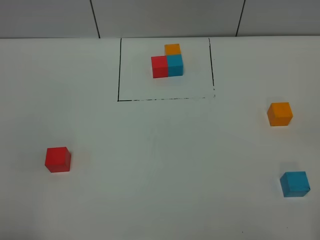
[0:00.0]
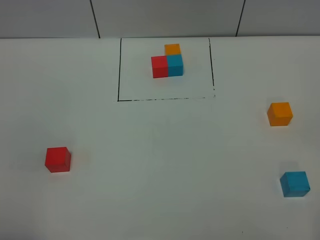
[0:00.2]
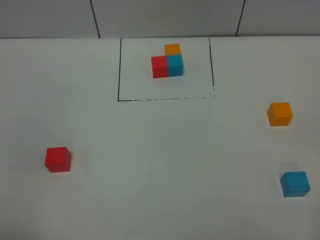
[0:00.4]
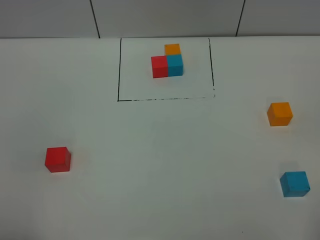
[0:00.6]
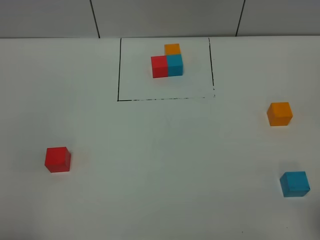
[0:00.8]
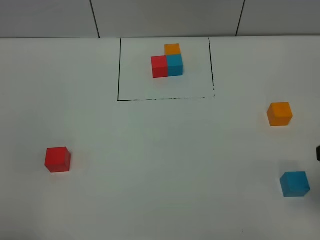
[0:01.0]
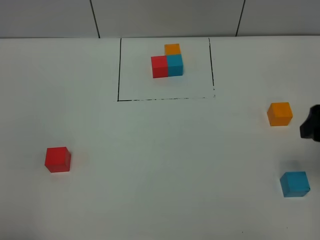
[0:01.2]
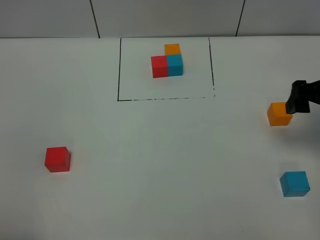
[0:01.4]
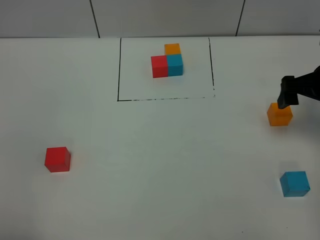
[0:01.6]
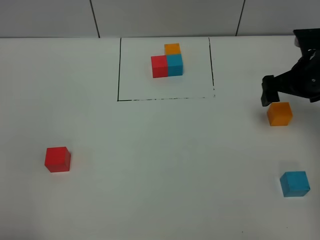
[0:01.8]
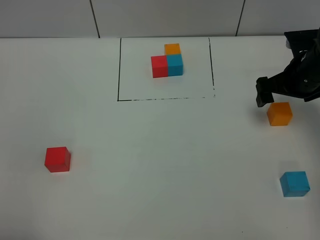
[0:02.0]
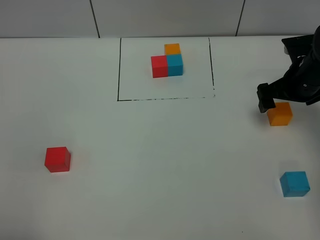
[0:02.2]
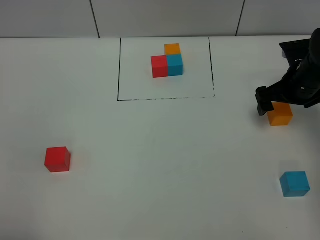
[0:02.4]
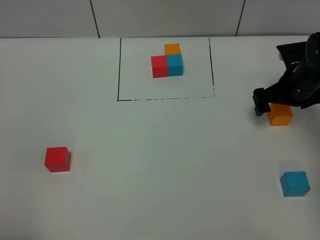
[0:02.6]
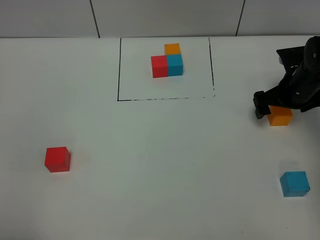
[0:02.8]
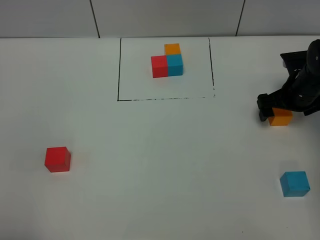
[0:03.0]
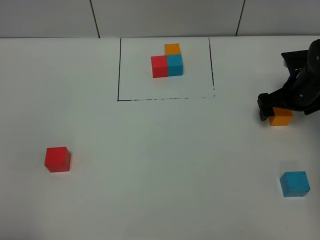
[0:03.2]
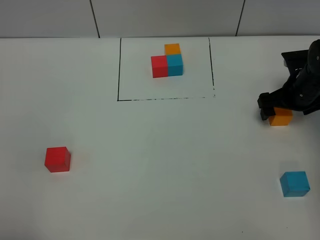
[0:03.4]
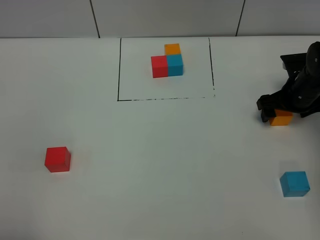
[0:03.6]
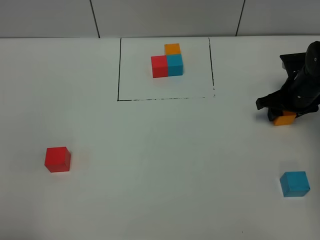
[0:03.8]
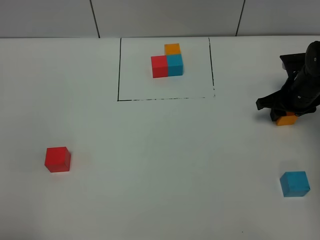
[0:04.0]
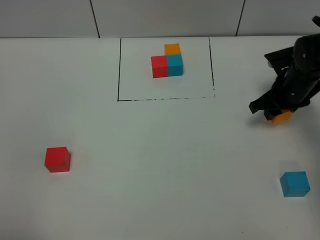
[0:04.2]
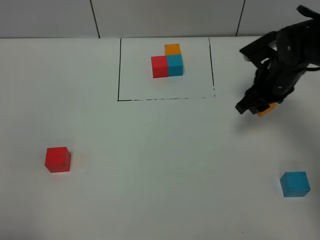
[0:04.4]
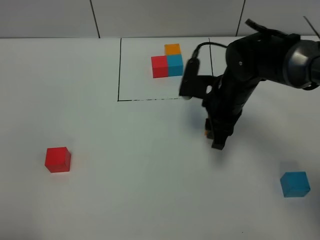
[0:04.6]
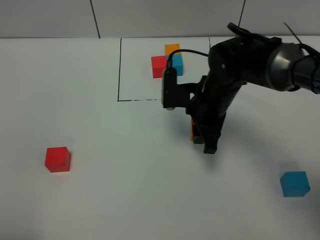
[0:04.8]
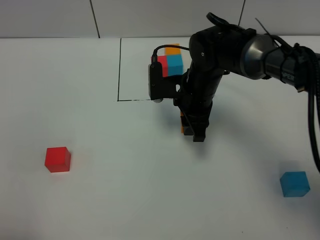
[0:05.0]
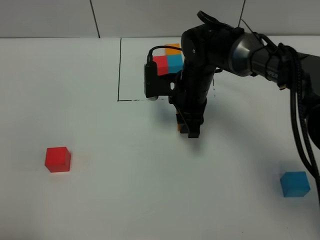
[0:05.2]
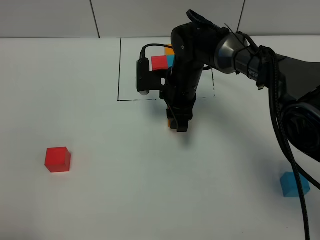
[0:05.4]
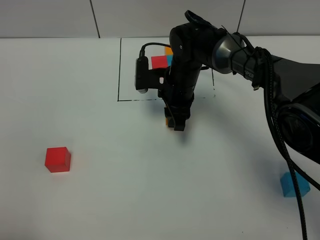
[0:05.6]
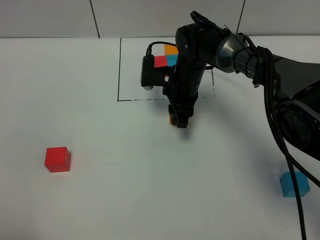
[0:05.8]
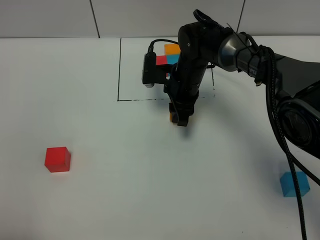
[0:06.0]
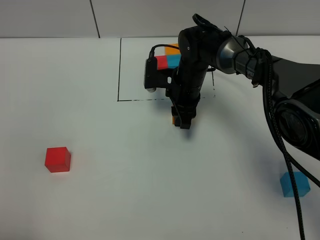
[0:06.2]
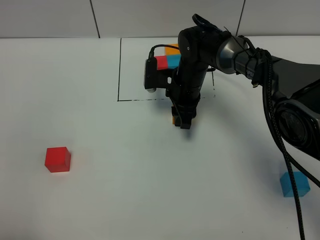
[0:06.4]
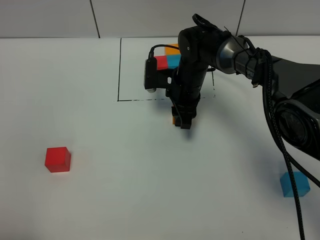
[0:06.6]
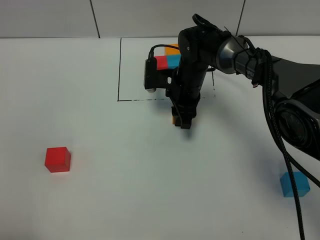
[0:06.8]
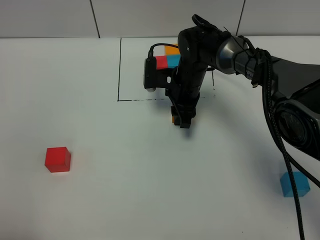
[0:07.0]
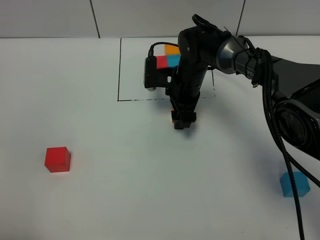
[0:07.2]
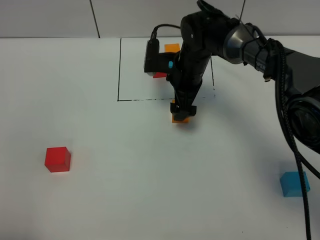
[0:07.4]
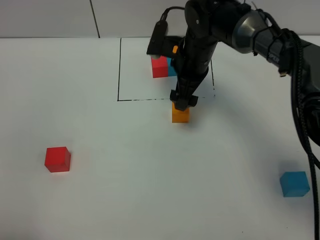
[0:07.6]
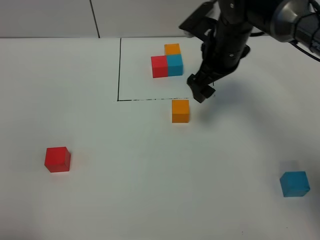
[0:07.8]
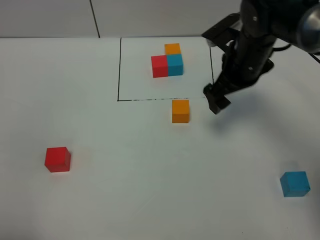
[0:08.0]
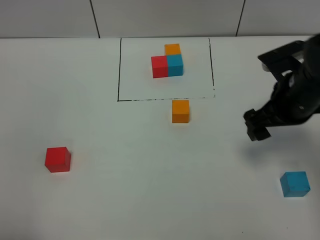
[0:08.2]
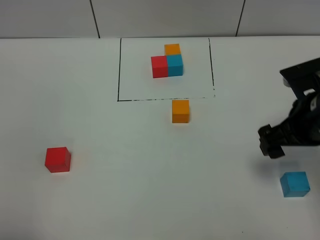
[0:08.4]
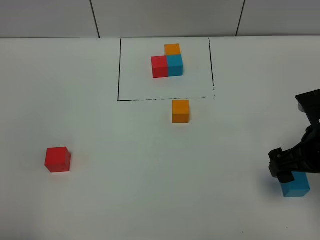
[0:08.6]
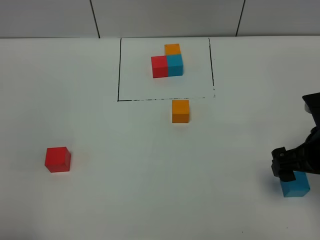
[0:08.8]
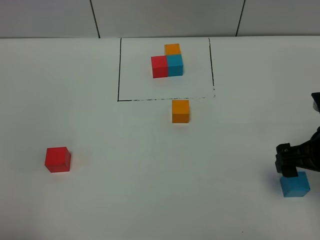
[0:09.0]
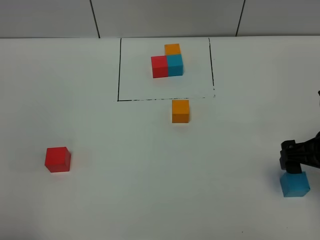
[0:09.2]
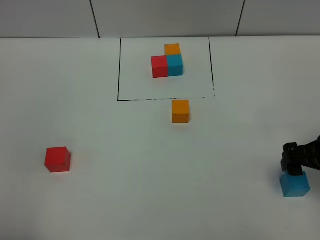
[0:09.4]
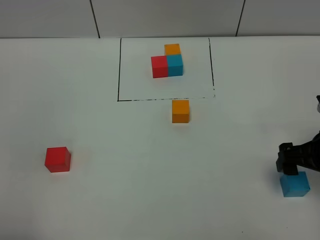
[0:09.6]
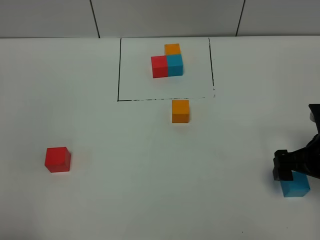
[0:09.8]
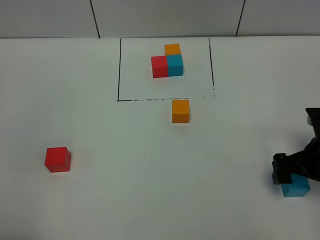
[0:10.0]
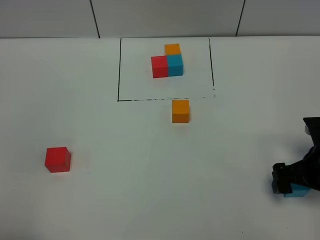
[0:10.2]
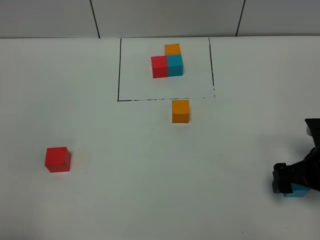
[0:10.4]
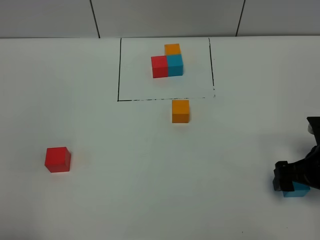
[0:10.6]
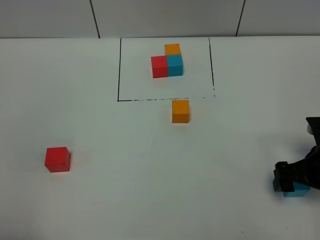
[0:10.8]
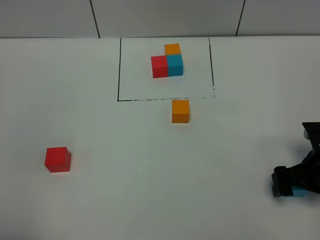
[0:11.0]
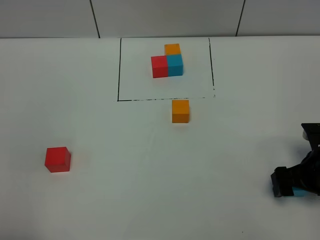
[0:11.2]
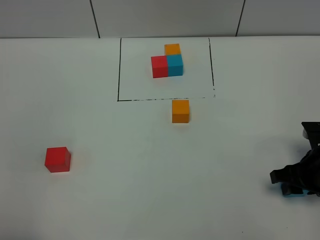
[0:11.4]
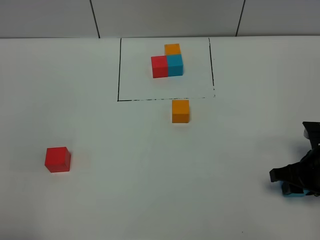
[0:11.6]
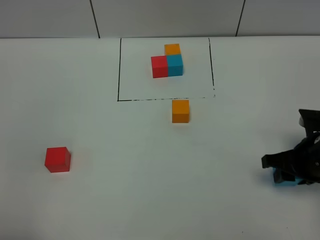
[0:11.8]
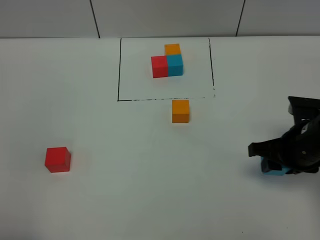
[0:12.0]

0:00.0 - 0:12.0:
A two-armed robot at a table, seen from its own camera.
Task of the whole recording: According to the building block template in front, assemble the scattered blocks together.
Step, 0:00.0 - 0:07.2: Put the orange build block in the center of the table.
0:00.0 - 0:01.6: The right gripper shifts about 35 cm forward.
0:01.6 - 0:03.0: The right gripper moves downward and forward, some 10 cm.
0:03.0 - 0:04.4: The right gripper travels to the left and upward by some 10 cm, and closes its fingers.
0:04.4 - 0:06.0: The right gripper travels to the left by approximately 15 cm.
0:06.0 - 0:07.6: The right gripper heads upward, covering roughly 10 cm, and opens its fingers.
0:07.6 - 0:09.0: The right gripper shifts roughly 30 cm backward and to the right.
0:09.0 - 0:10.4: The right gripper moves downward, about 5 cm.
0:10.4 - 0:12.0: The right gripper travels to the left by some 5 cm, and closes.

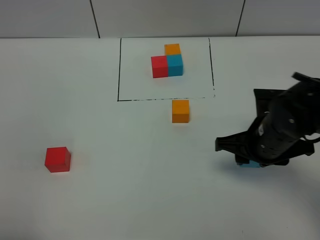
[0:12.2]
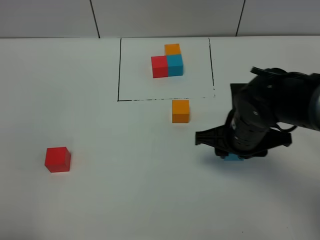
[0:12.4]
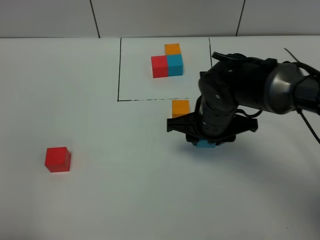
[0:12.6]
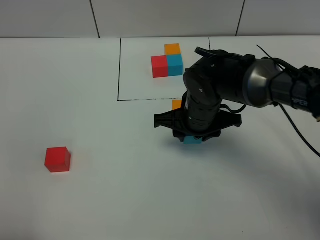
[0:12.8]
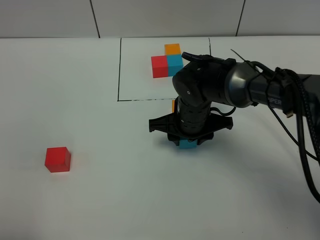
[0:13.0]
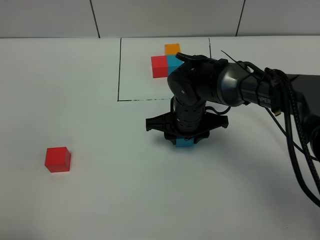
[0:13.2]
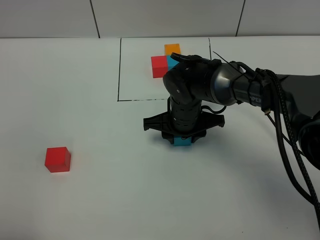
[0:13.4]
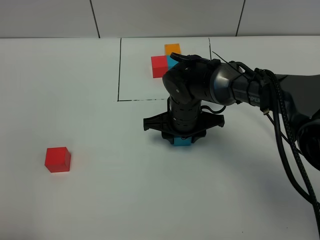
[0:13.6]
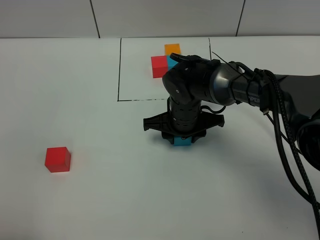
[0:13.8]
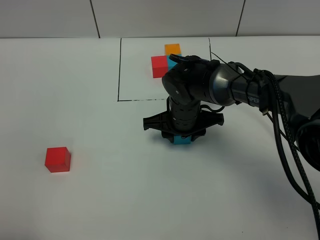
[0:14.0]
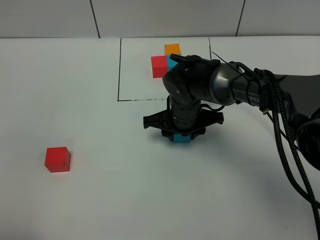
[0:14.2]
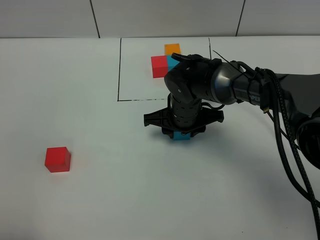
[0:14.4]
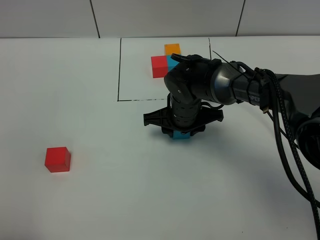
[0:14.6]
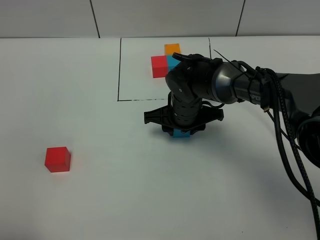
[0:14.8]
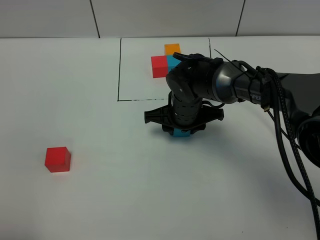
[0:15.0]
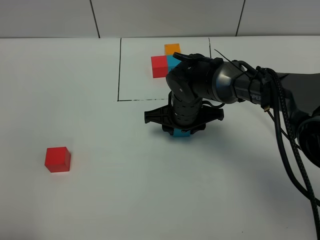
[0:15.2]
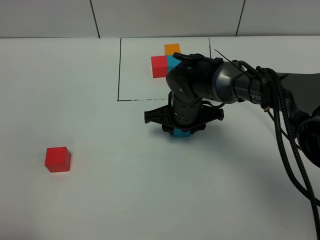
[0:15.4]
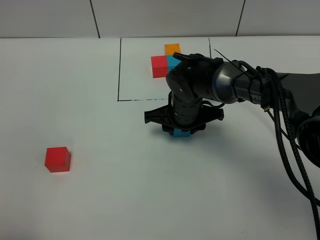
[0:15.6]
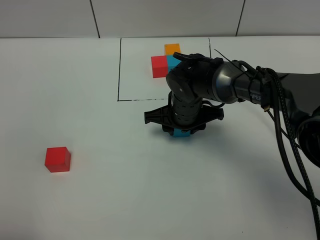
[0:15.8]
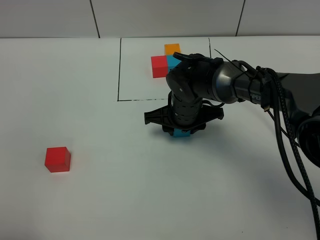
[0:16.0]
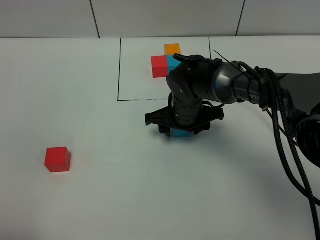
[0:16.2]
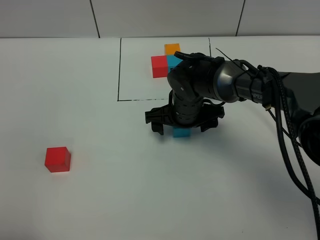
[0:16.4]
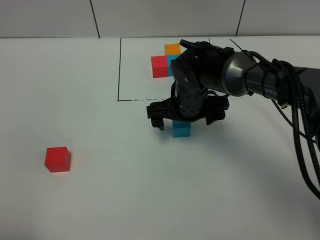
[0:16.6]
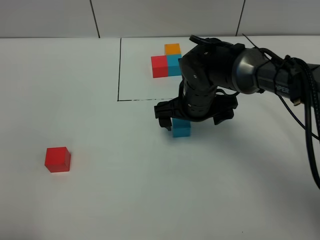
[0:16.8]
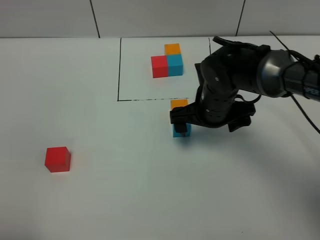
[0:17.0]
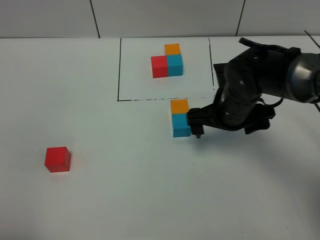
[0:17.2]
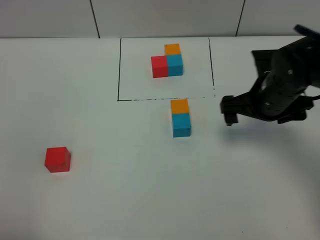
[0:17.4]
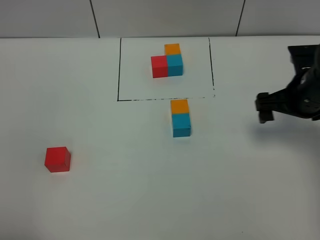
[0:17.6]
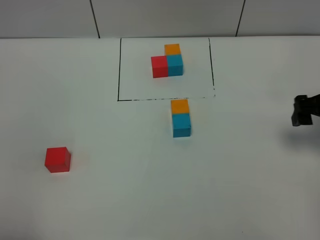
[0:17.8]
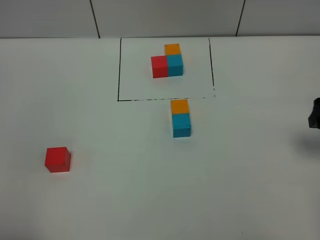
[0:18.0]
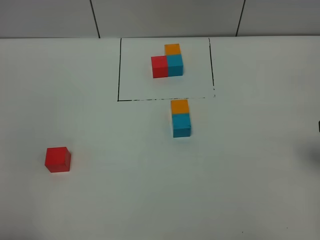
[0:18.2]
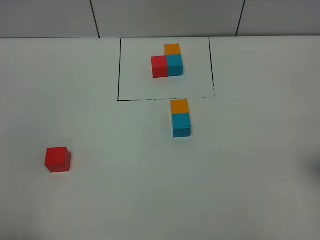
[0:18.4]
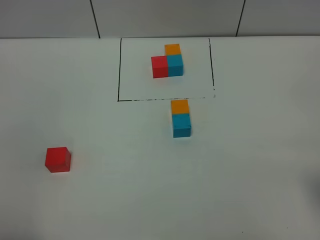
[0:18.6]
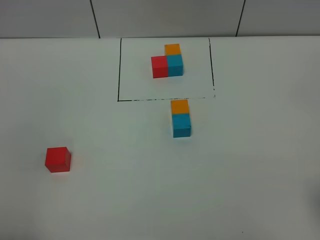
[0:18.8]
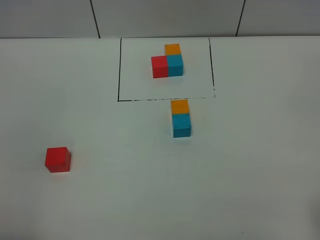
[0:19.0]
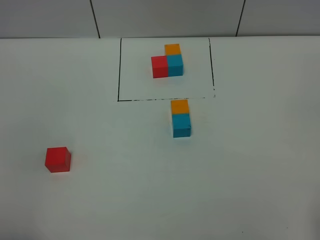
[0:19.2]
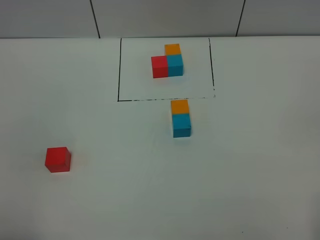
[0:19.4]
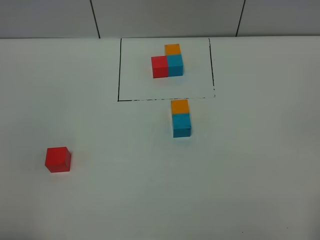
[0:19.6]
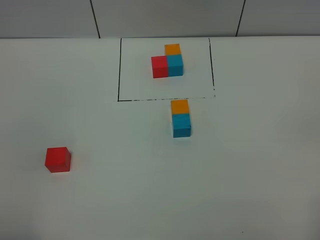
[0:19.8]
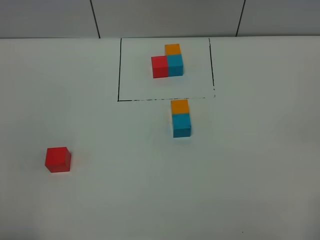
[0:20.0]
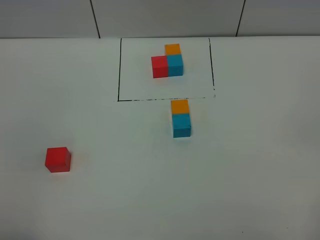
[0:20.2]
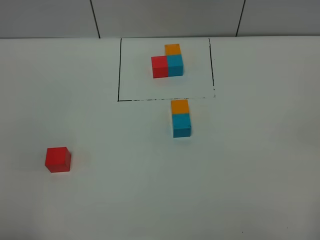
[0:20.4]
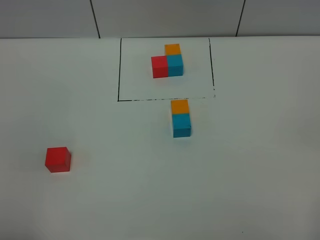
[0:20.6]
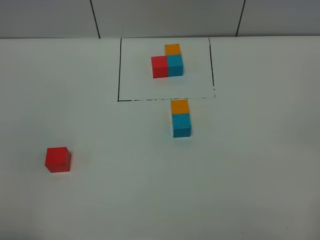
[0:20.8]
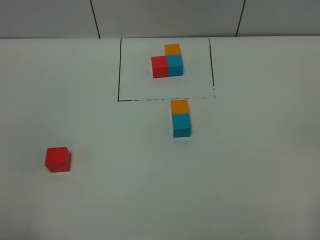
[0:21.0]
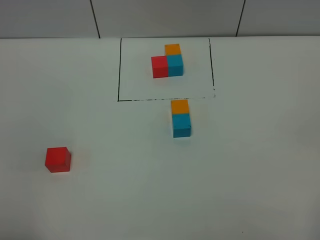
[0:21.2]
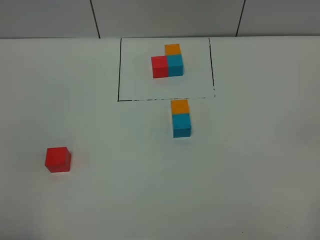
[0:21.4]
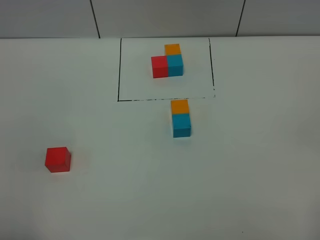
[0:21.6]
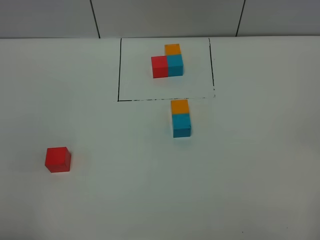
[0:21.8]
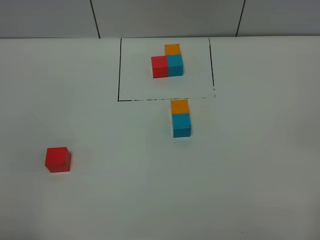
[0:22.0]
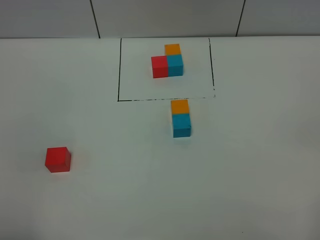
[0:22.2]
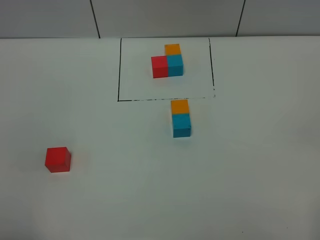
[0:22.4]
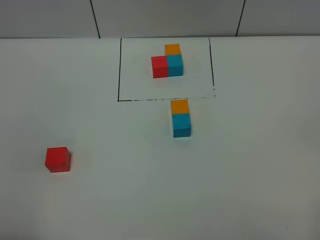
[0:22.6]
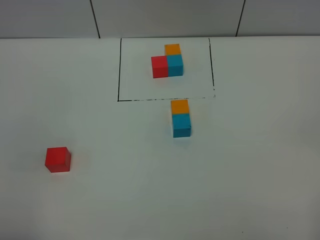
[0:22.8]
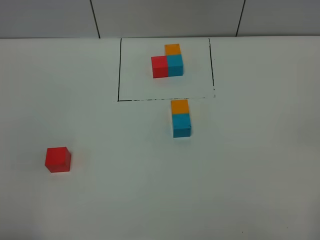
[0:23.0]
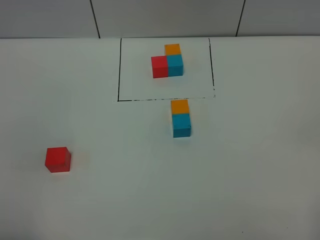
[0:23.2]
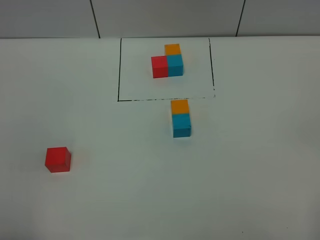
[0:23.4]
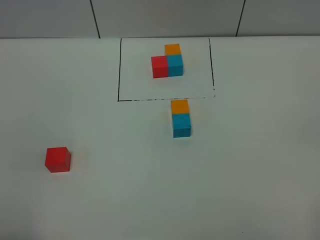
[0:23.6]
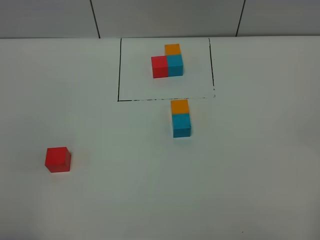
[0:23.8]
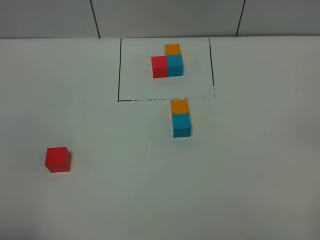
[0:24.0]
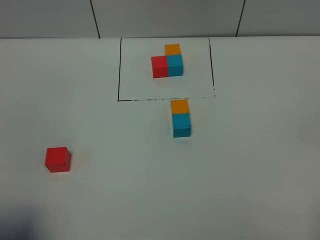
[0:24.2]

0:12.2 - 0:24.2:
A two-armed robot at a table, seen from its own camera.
Task of the whole recording: According to the building block template in front, assemble the scattered blocks together.
Step, 0:12.2 - 0:16.2: Put the orange build block on the behind of the blue build block.
0:12.2 - 0:13.8: The right gripper is displaced to the left, forward and downward by roughly 15 cm.
0:13.8 - 0:15.2: Both grippers stay about where they are.
0:15.2 - 0:16.6: The right gripper opens up.
0:16.6 - 0:18.2: The right gripper shifts roughly 30 cm to the right and backward.
0:21.2 - 0:22.6: The two grippers keep their place.
0:22.6 - 0:24.2: The left gripper heads forward, covering some 5 cm, and opens up.
